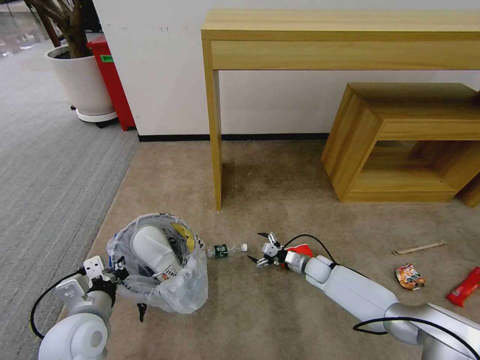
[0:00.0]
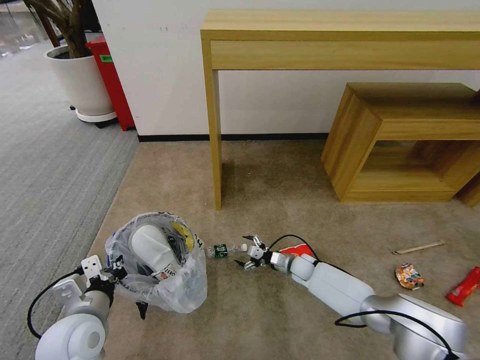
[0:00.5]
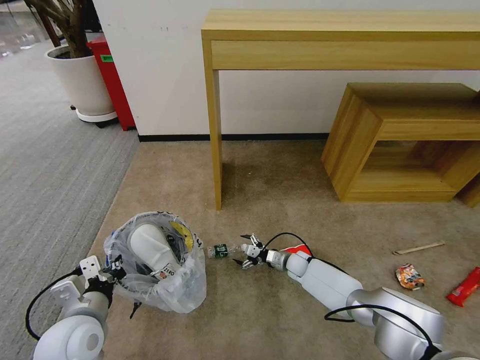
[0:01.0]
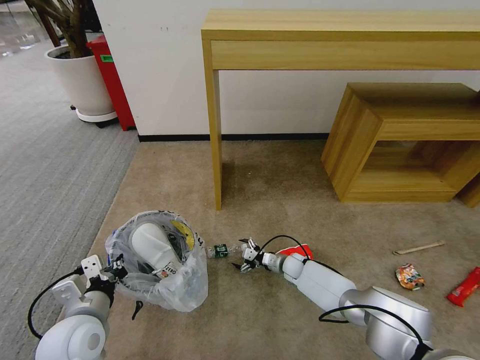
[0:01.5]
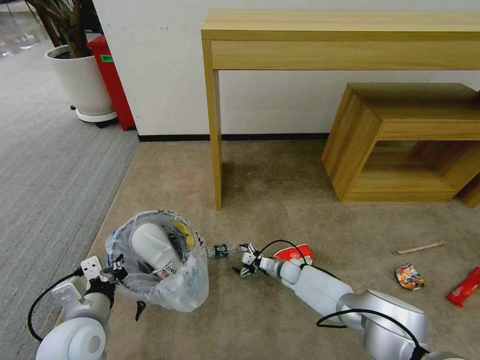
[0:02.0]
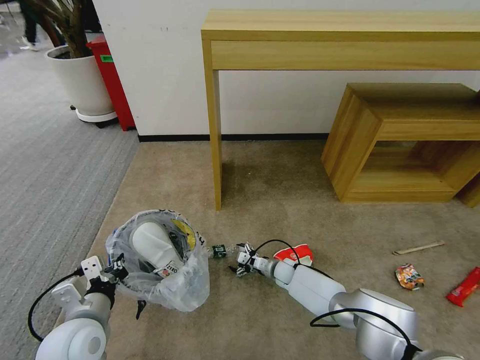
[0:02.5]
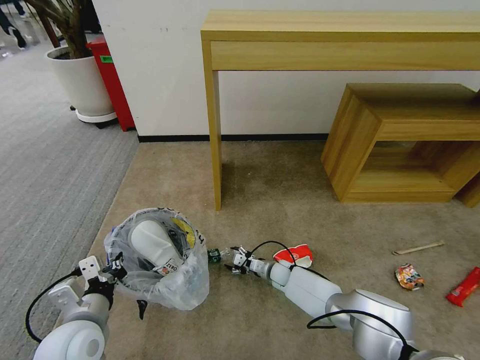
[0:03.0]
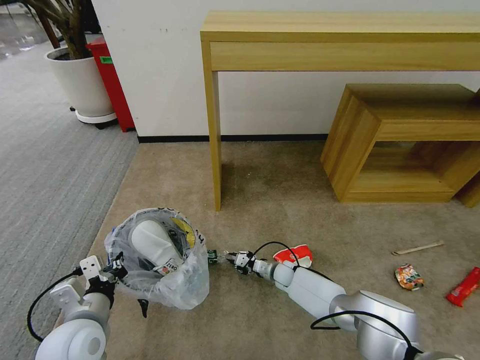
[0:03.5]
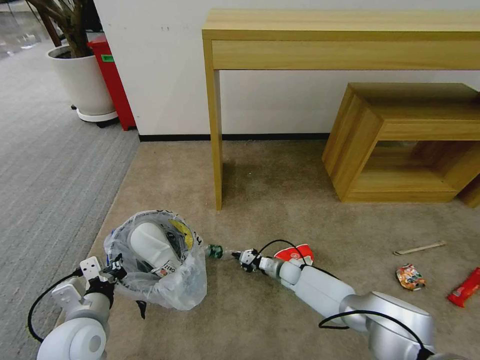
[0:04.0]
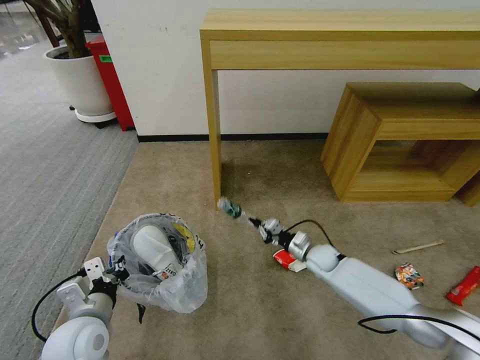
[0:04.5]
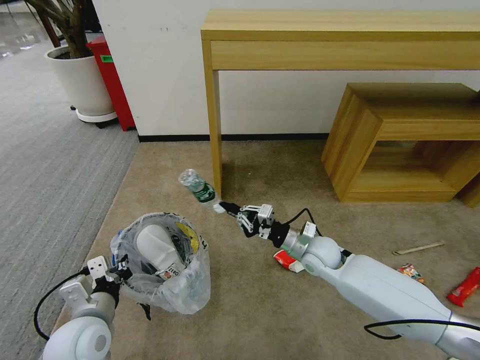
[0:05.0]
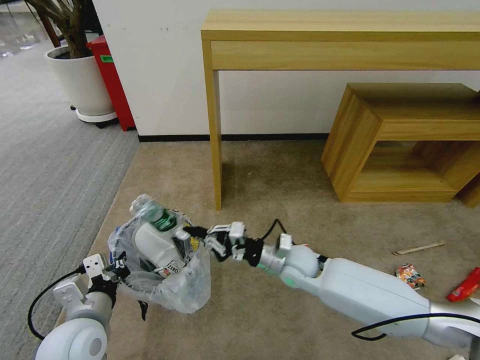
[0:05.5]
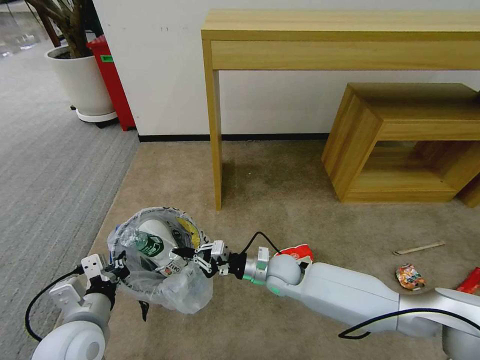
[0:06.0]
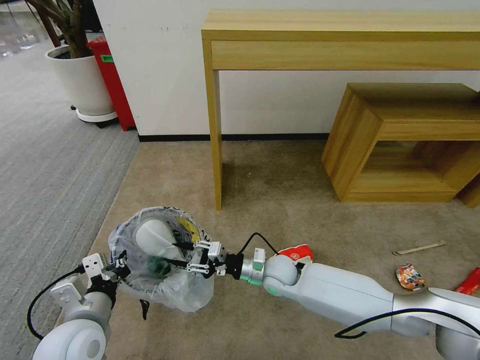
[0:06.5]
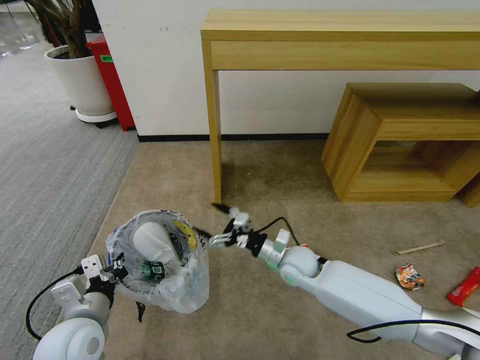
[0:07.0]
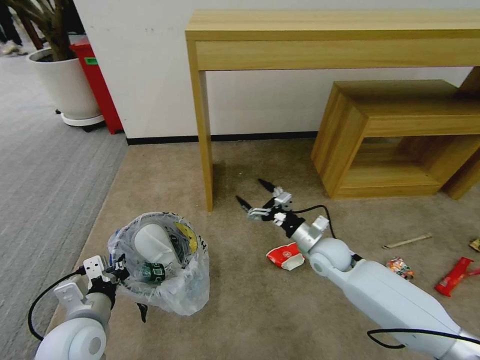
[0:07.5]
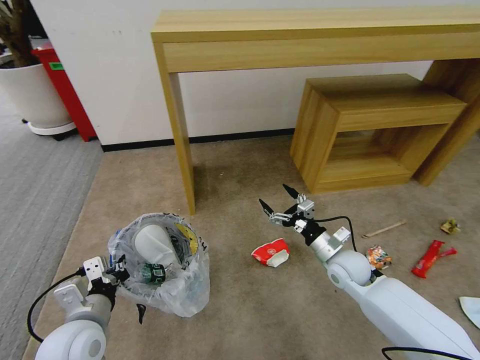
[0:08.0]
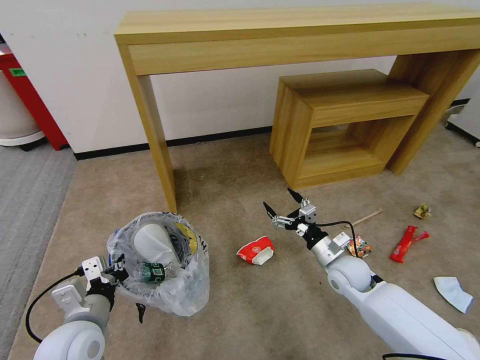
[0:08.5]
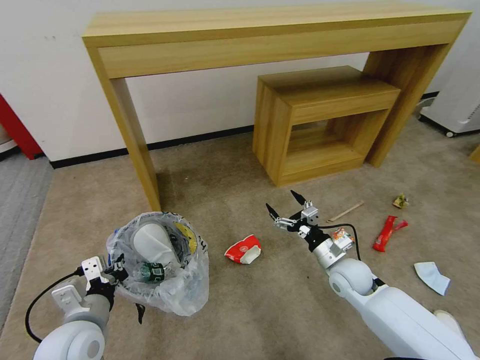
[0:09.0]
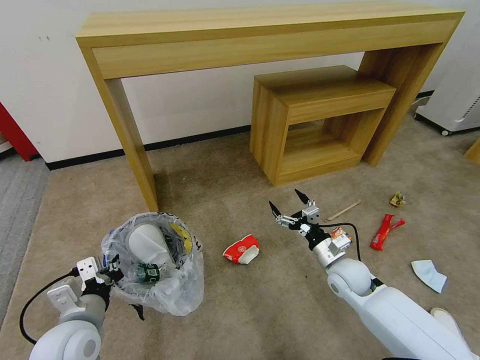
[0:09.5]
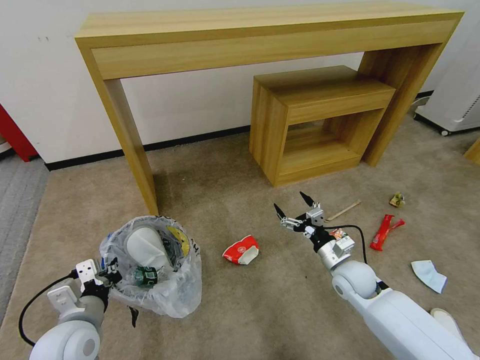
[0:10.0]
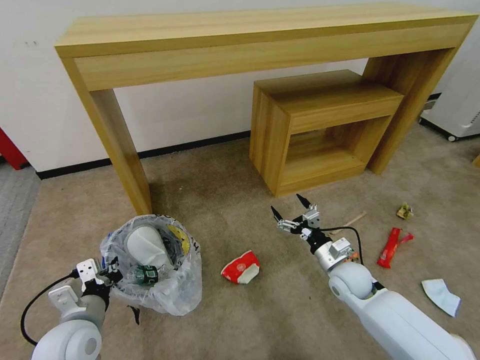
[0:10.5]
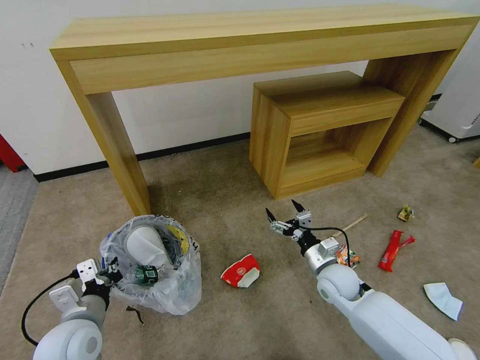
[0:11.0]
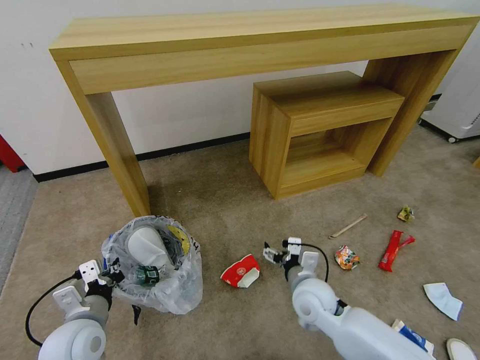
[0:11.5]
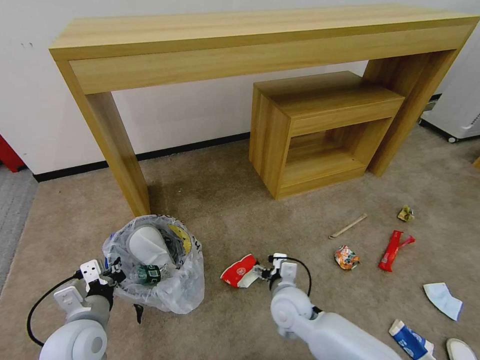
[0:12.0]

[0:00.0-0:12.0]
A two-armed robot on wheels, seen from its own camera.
Task of the whole recording: Pick up the trash bin and place the garbage on the floor into it.
0:00.0 to 0:02.0: The right gripper moves to the left, roughly 5 cm.
0:02.0 to 0:04.0: The right gripper closes its fingers.
0:04.0 to 0:06.0: The right gripper heads upward, backward and to the left, covering some 20 cm.
0:06.0 to 0:08.0: The right gripper travels to the right by approximately 15 cm, and opens up.
0:10.0 to 0:12.0: The right gripper moves to the left, some 15 cm.

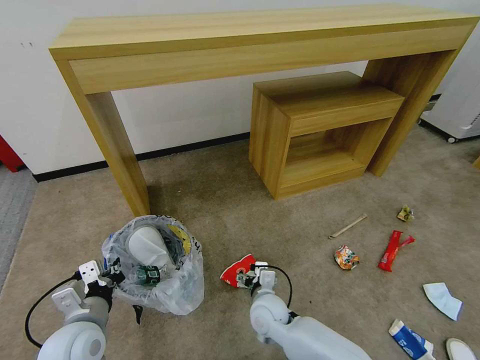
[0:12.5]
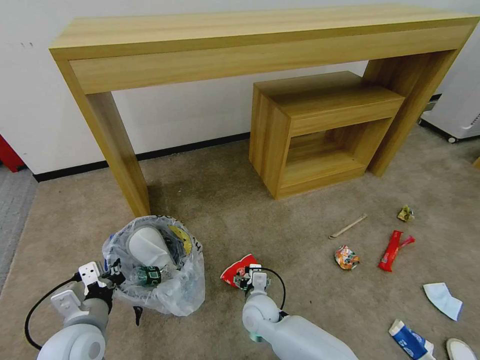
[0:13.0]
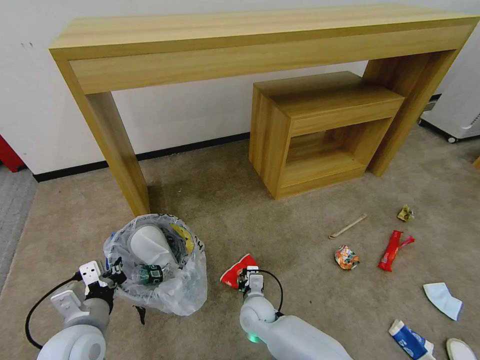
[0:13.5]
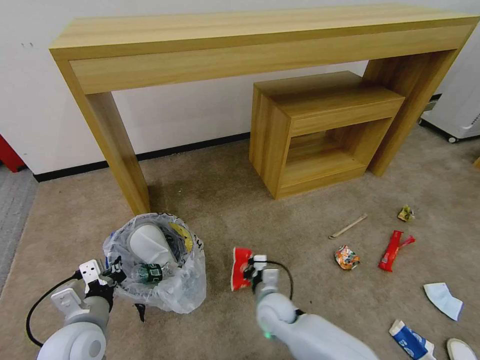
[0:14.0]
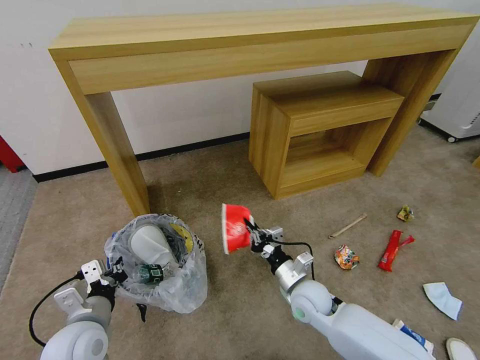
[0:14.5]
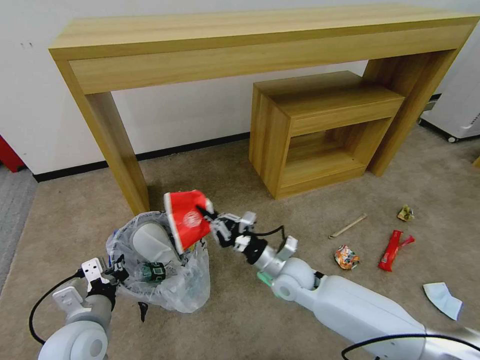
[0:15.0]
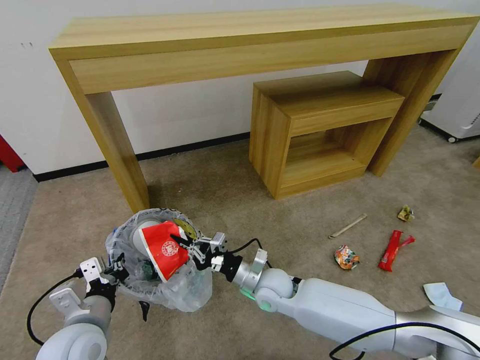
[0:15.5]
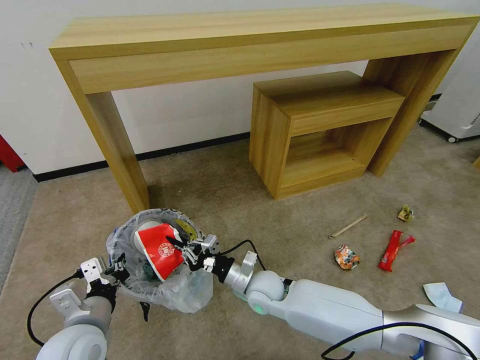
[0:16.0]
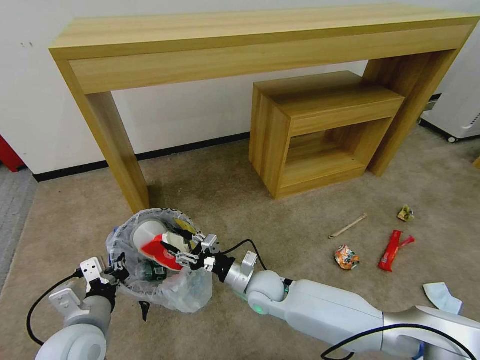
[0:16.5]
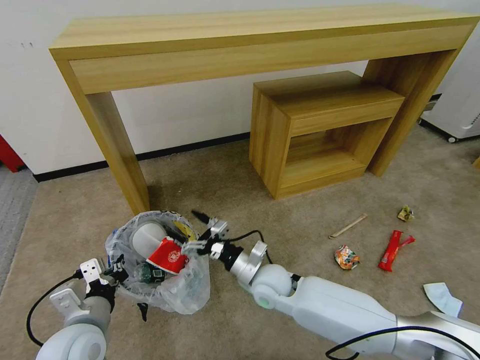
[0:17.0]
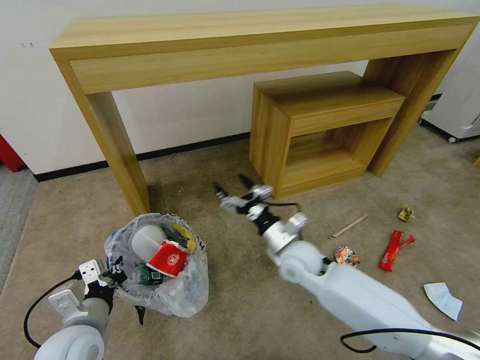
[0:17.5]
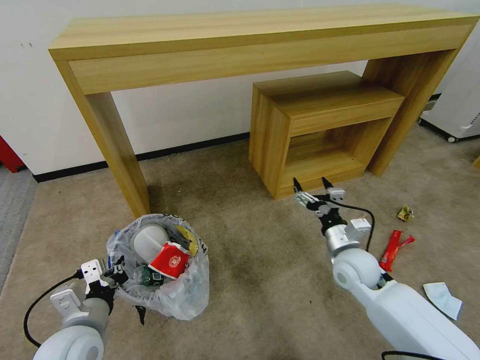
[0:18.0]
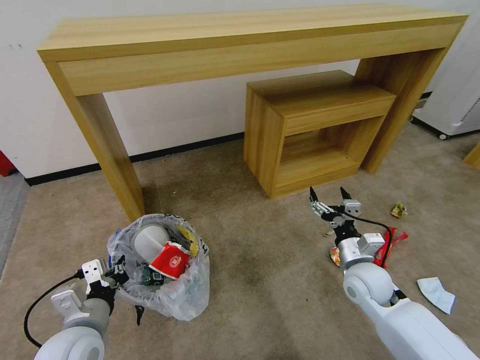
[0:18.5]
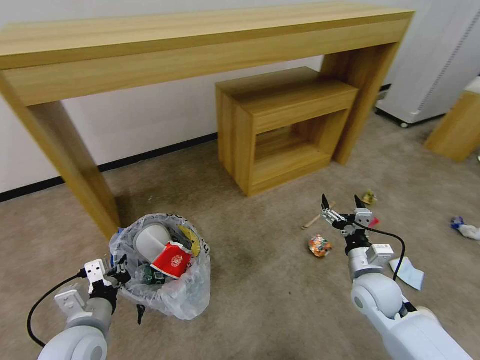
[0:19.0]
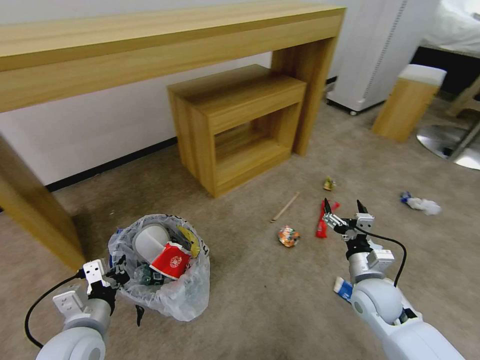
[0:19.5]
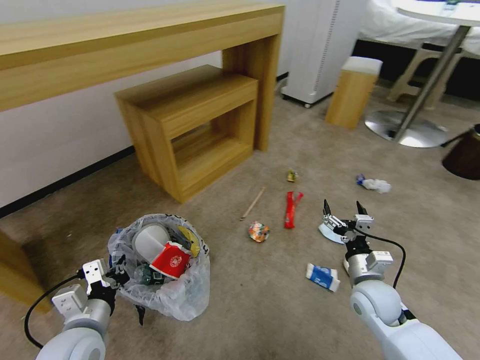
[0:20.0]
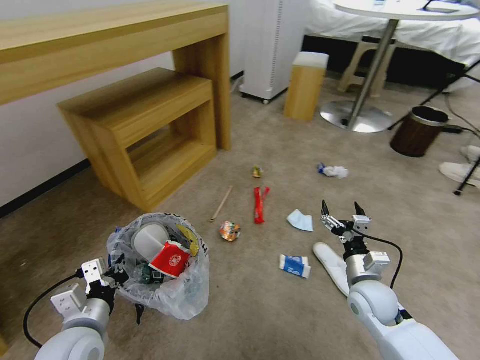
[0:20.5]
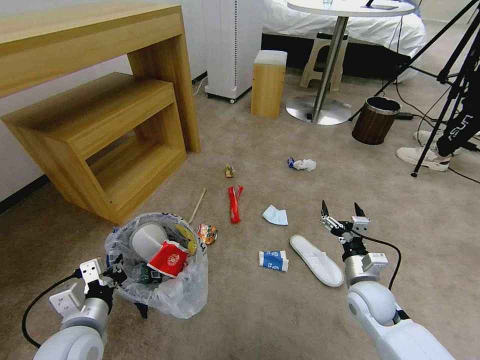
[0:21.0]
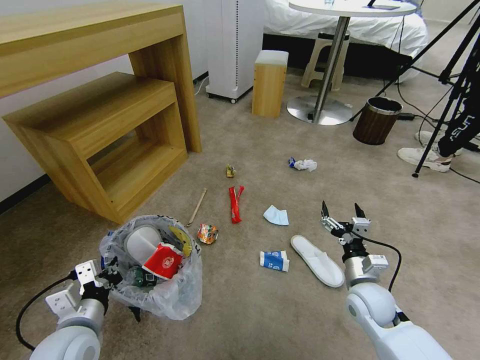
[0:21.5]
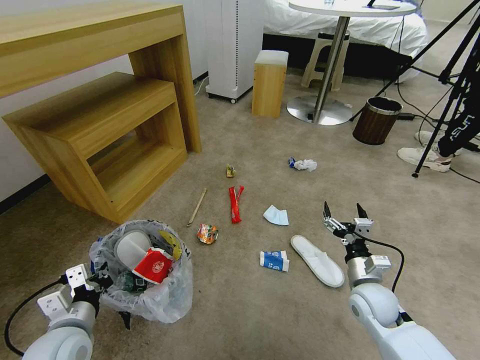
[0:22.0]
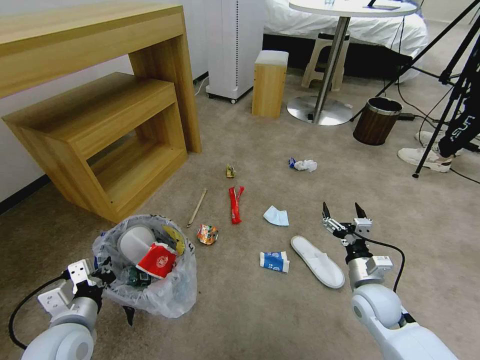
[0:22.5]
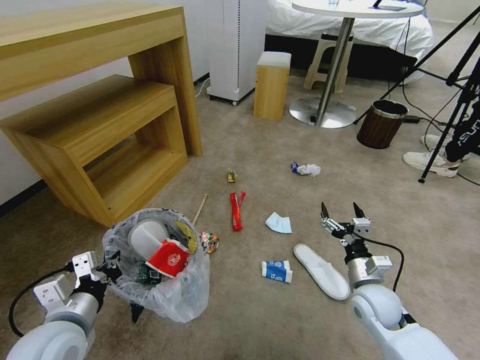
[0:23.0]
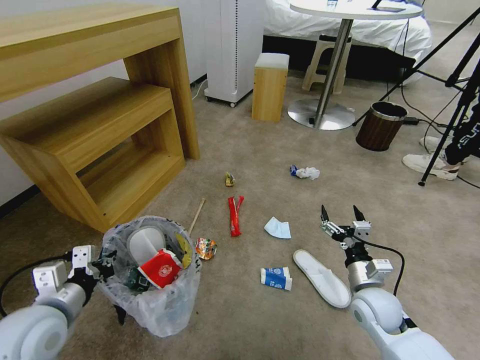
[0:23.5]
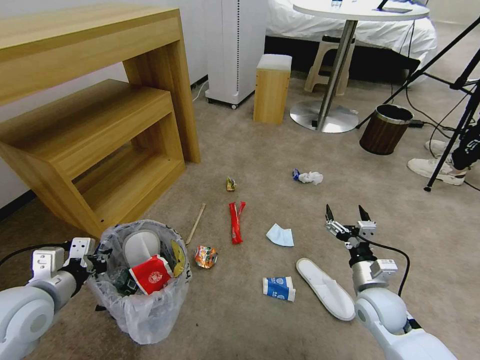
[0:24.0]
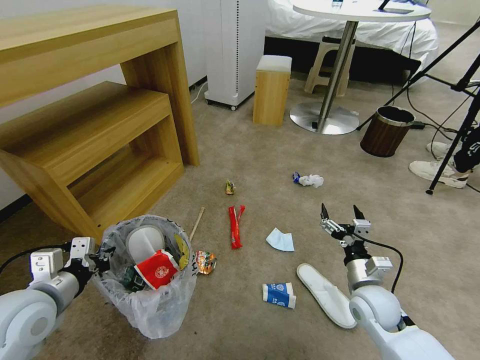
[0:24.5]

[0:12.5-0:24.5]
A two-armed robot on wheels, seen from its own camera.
Task of the whole recording: Pick up the trash bin and place the garbage on the floor into it.
0:12.5 to 0:14.5: The right gripper goes some 10 cm to the right, and closes up.
0:14.5 to 0:16.5: The right gripper shifts about 10 cm to the left, and opens up.
0:16.5 to 0:18.5: The right gripper travels to the right by some 20 cm, and opens up.
0:22.5 to 0:24.5: The left gripper shifts some 5 cm upward.

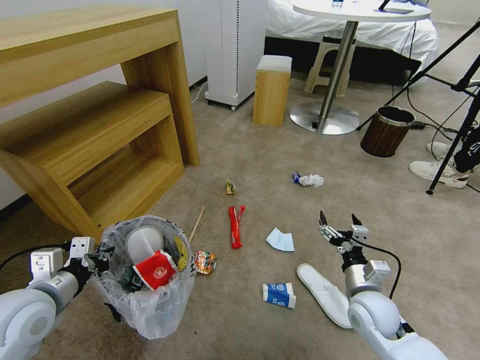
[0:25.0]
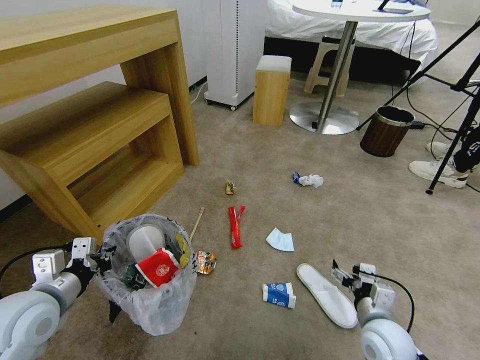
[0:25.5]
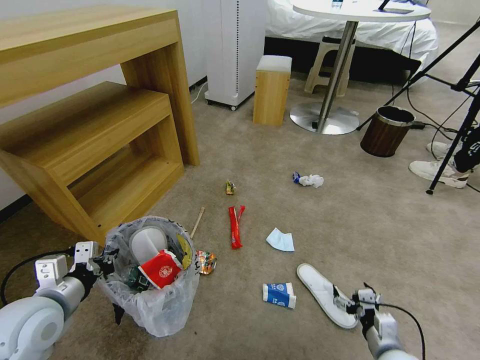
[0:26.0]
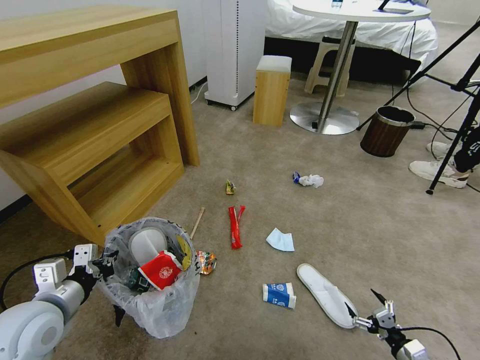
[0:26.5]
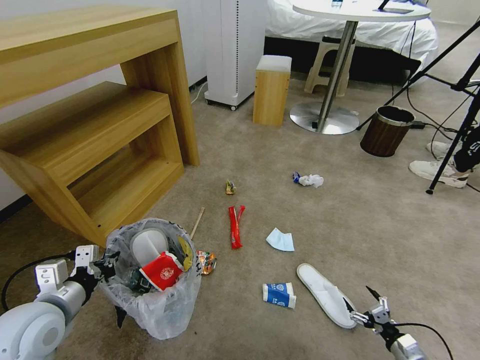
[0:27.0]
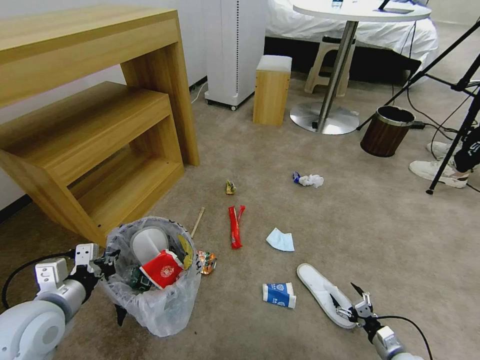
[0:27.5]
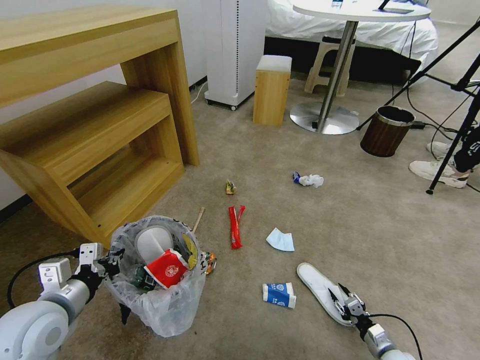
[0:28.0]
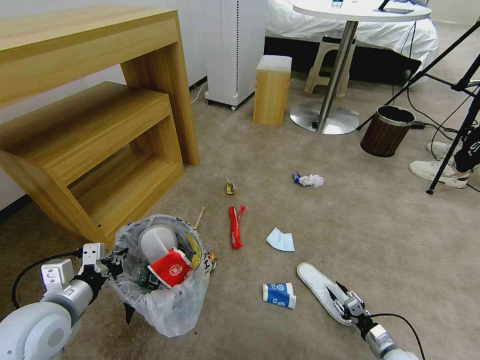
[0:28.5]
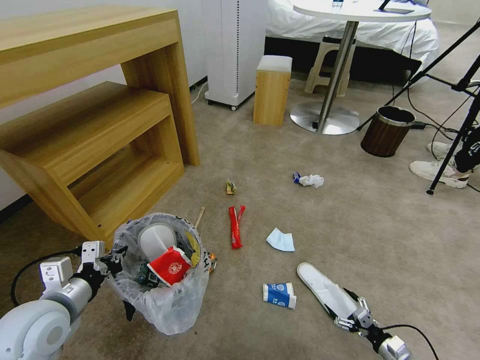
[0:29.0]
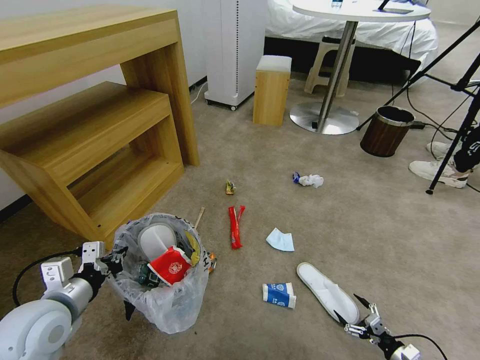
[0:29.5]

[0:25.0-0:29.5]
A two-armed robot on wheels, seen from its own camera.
Task of the whole recording: Pick up the trash bin and place the garbage on the floor into it.
0:25.0 to 0:27.0: The right gripper shifts about 30 cm to the right, downward and backward.
0:27.0 to 0:29.5: The right gripper closes and opens again.
